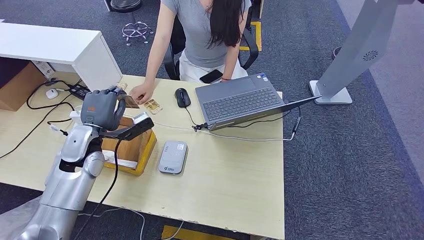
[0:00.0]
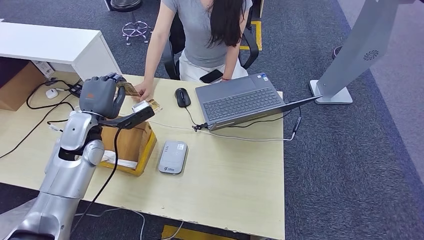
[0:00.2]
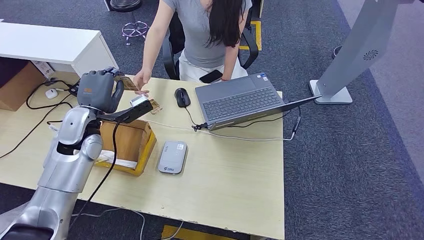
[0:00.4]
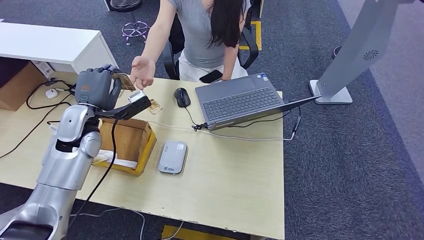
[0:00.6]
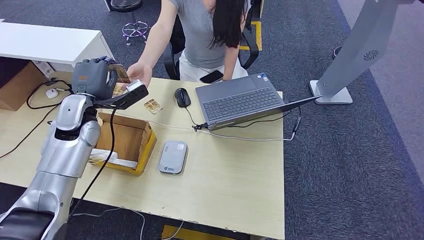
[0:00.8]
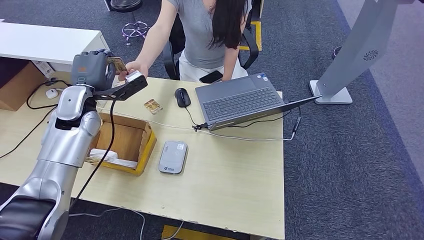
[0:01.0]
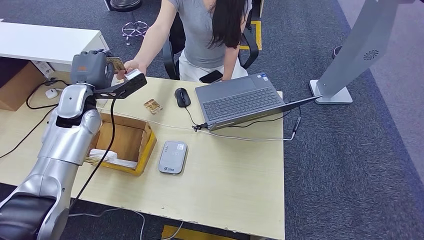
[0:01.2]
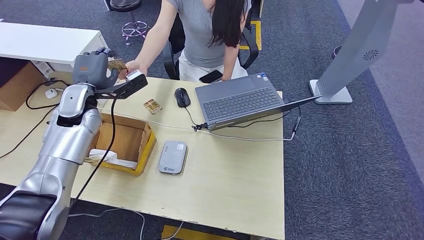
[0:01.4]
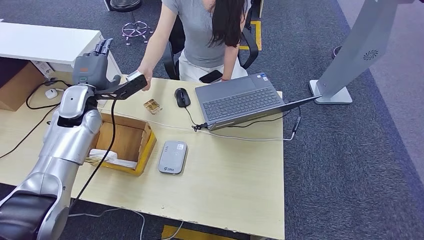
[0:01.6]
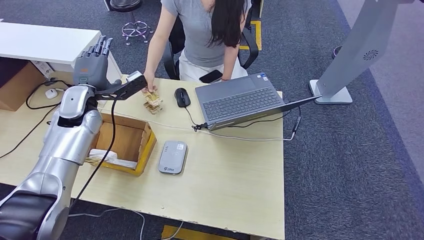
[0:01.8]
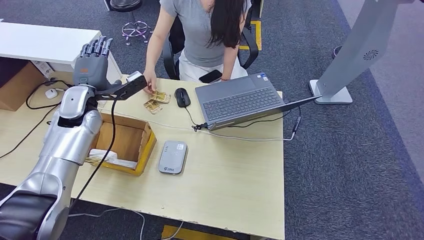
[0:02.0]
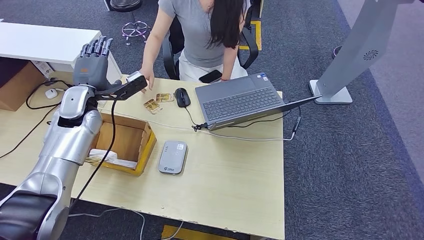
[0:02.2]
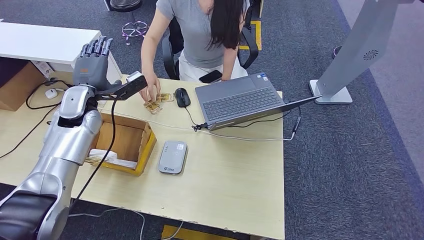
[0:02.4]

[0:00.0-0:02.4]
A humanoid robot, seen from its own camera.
Step, 0:00.4 to 0:02.4: Hand the room key to the person.
0:00.0 to 0:01.2: The left hand shifts some 10 cm forward and upward.
0:01.2 to 0:02.4: Both hands stay about where they are.
